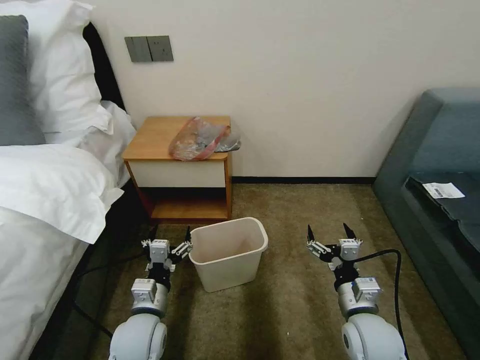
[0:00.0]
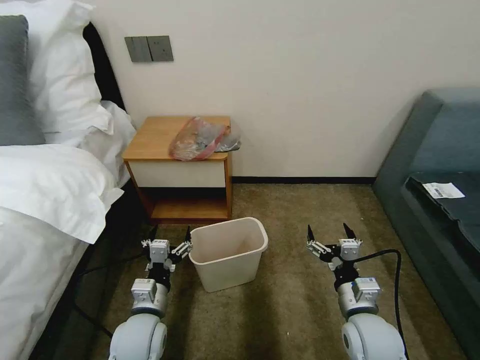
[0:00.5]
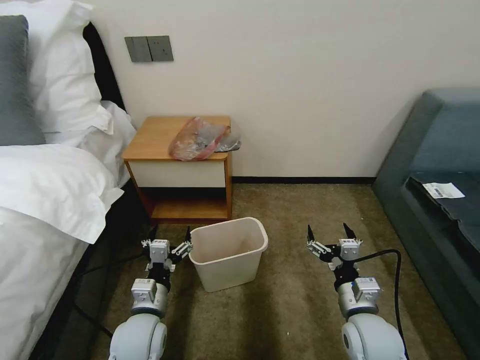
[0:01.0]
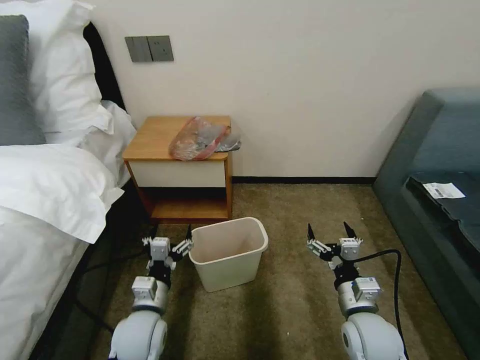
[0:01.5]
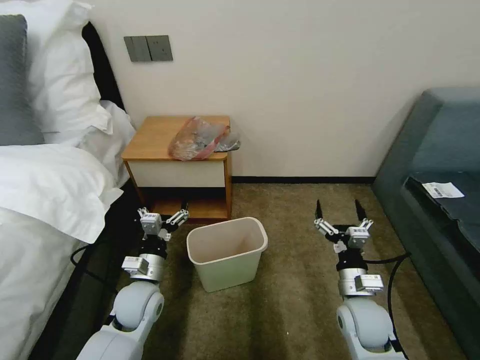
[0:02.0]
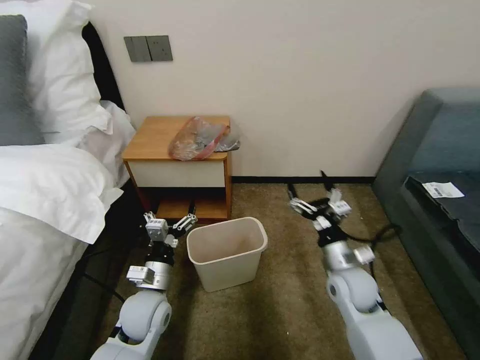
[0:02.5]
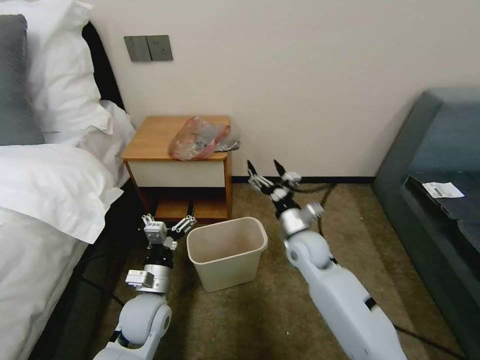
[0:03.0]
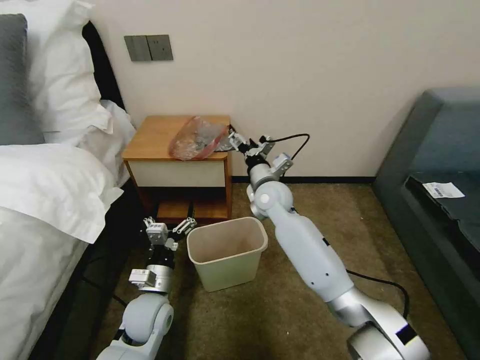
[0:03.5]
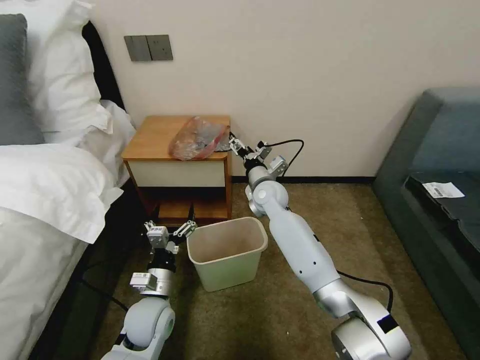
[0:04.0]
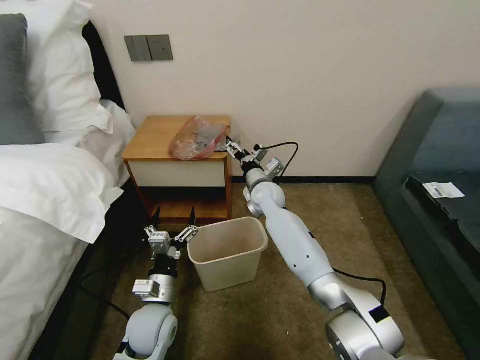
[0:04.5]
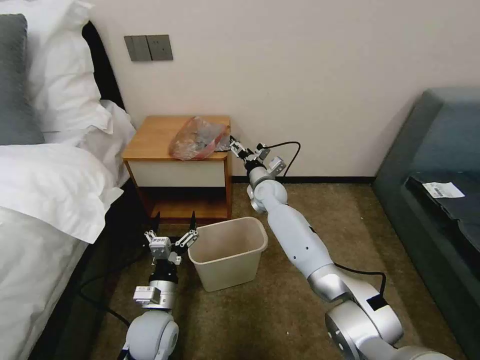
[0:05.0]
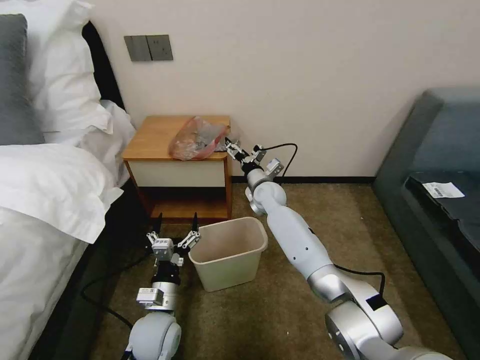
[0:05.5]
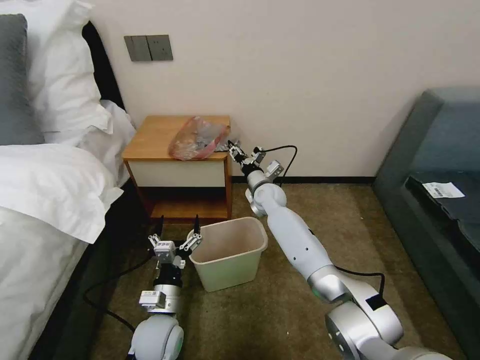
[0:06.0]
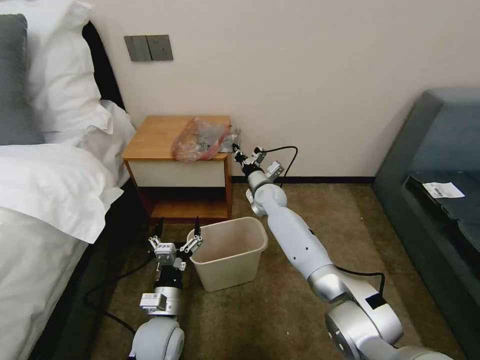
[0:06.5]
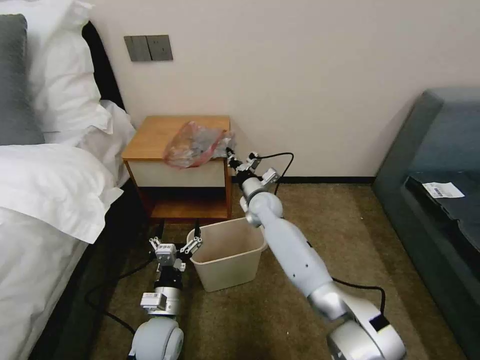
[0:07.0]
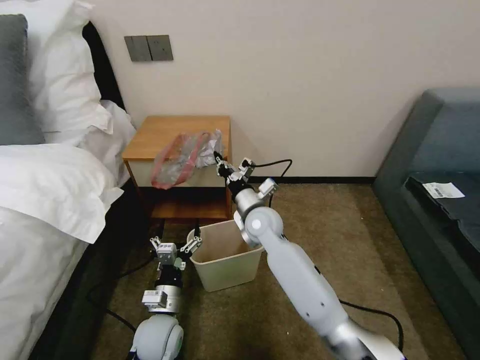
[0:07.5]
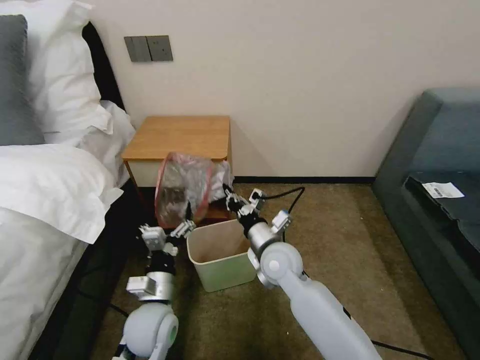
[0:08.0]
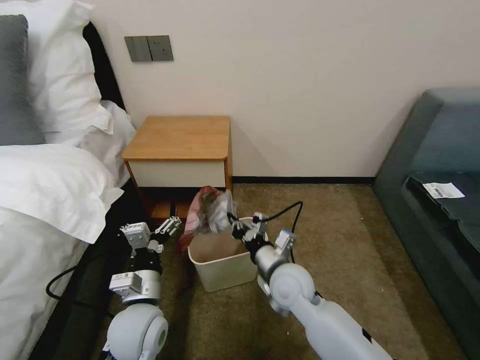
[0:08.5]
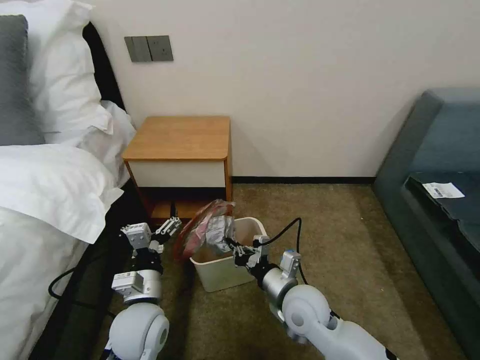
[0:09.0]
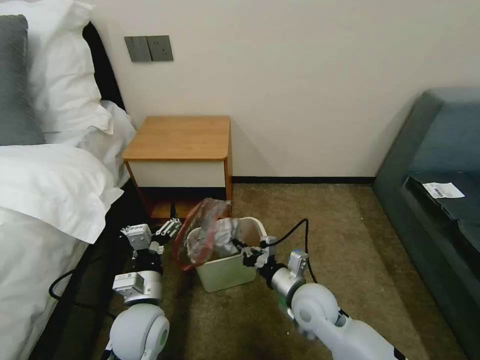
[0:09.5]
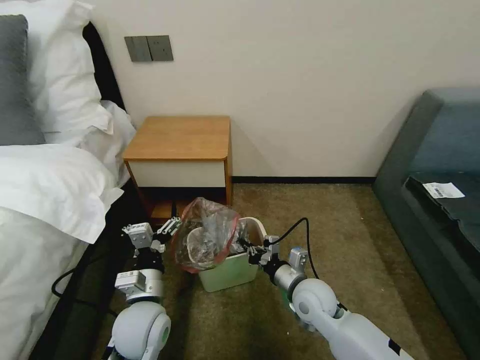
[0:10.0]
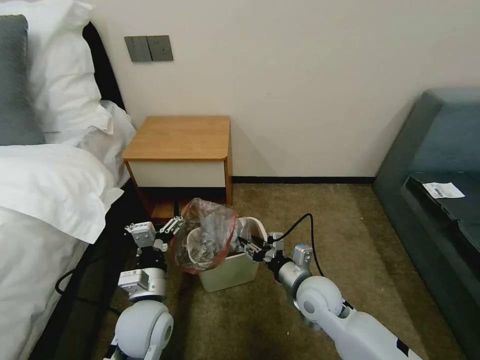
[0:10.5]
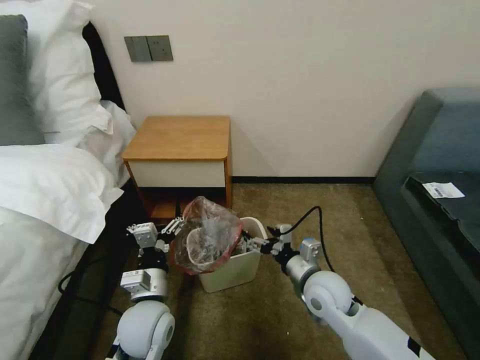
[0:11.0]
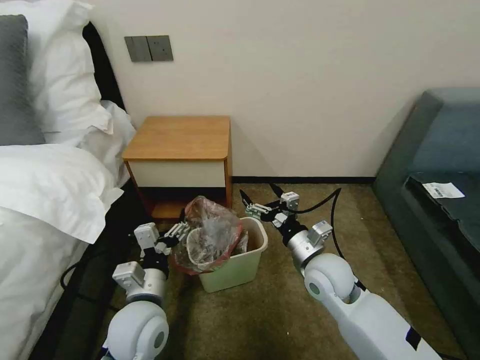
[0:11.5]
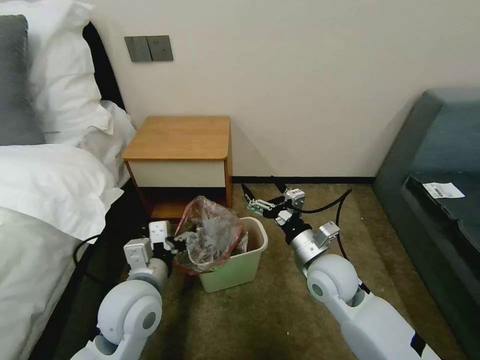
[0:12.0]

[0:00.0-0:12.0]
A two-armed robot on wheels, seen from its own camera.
Task of the whole recording: Pick up the garbage bag from the table and place it over the trash can.
0:02.0 to 0:04.0: The right gripper goes some 35 cm forward and to the left.
0:04.0 to 0:06.0: The right gripper ends up some 5 cm from where it was, and closes.
0:06.0 to 0:08.0: The right gripper is displaced backward by about 20 cm, and closes its fingers.
0:08.0 to 0:10.0: The right gripper goes roughly 10 cm to the right, downward and backward.
0:10.0 to 0:12.0: The grippers both shift upward by roughly 10 cm. The right gripper opens.

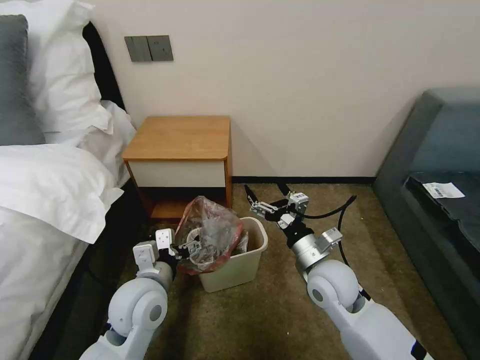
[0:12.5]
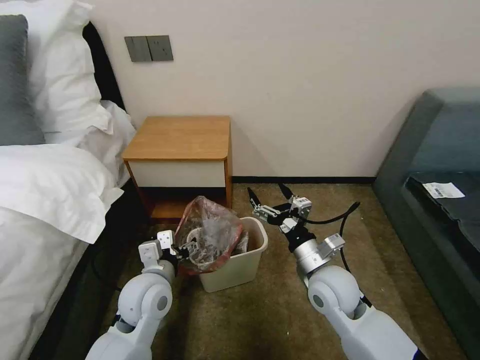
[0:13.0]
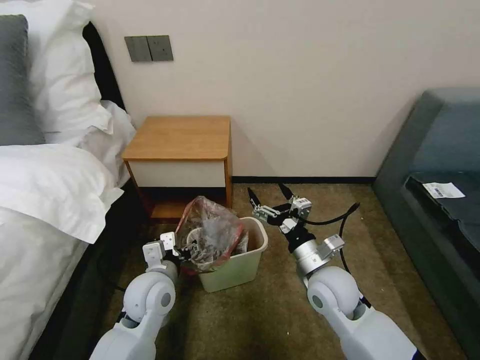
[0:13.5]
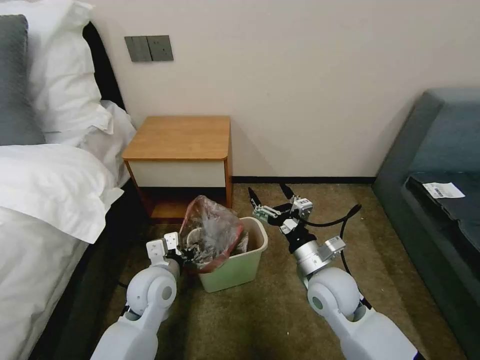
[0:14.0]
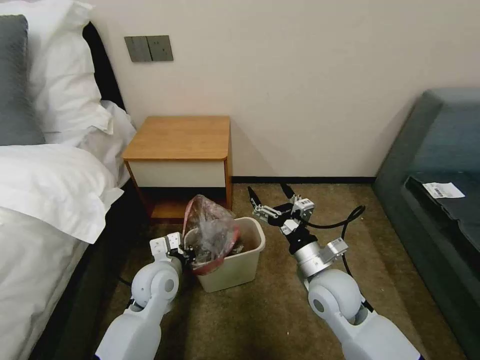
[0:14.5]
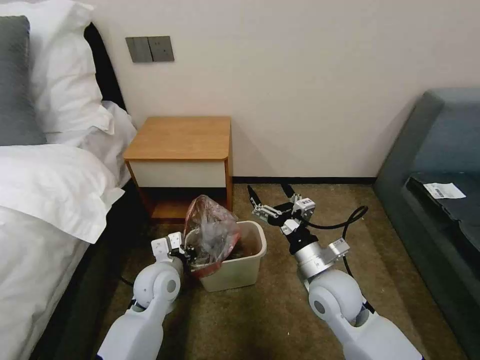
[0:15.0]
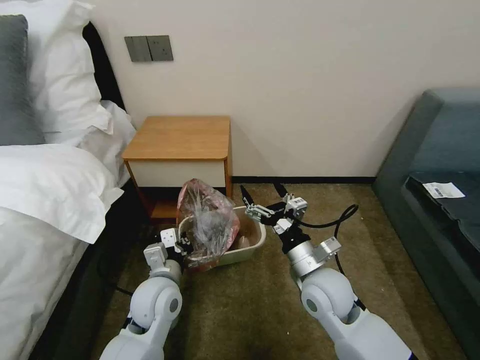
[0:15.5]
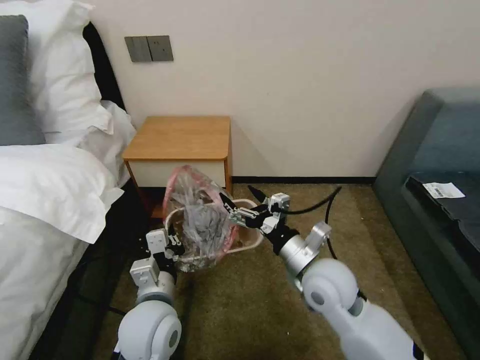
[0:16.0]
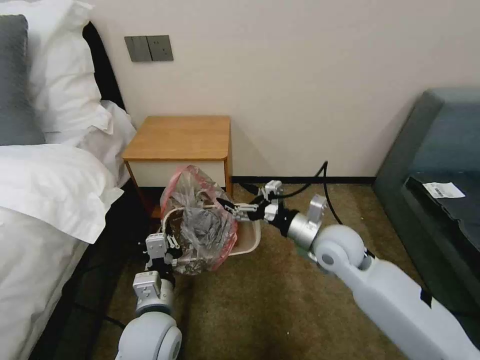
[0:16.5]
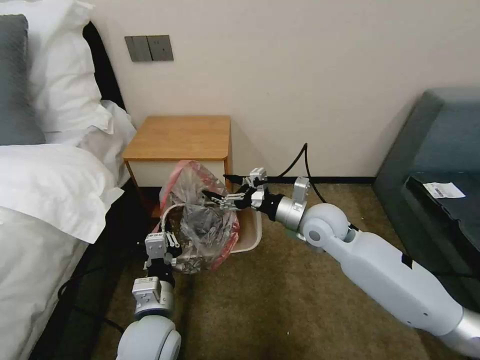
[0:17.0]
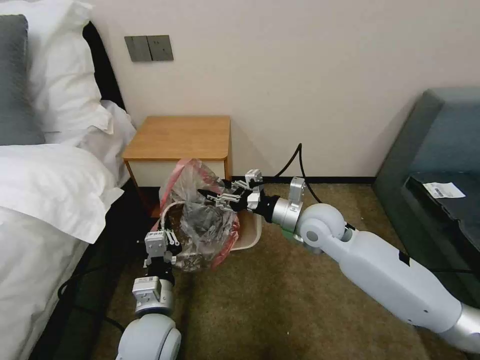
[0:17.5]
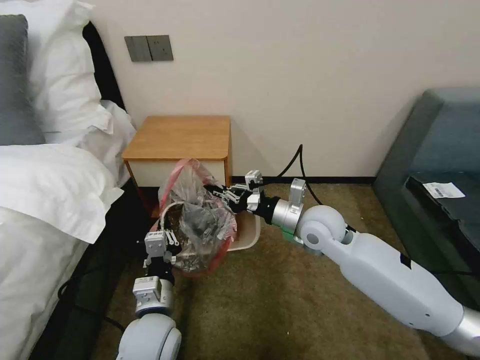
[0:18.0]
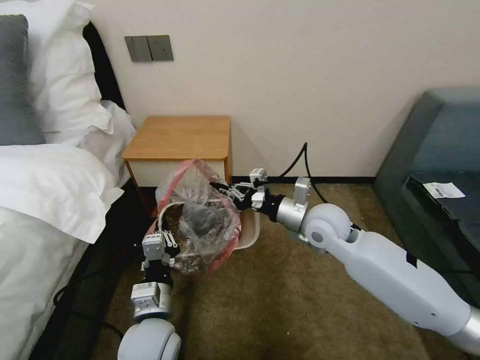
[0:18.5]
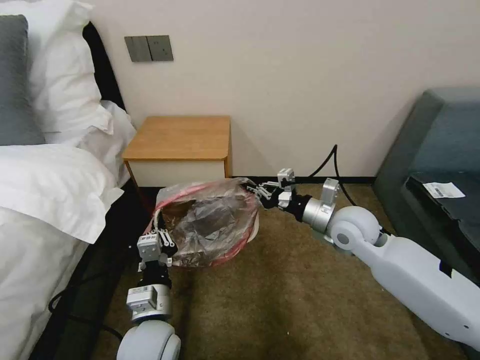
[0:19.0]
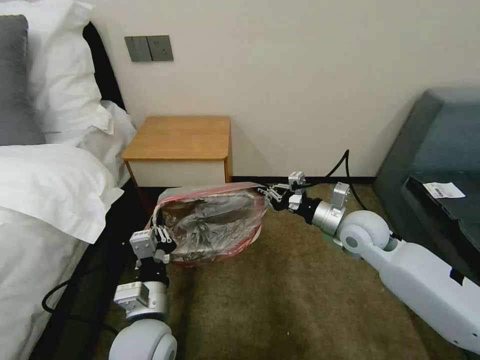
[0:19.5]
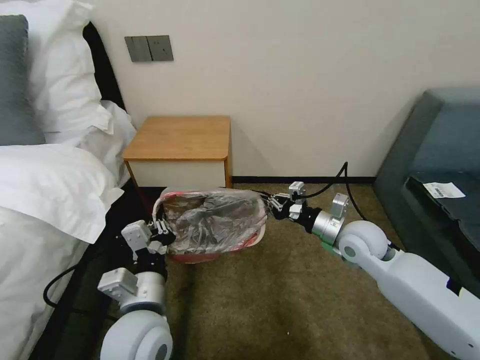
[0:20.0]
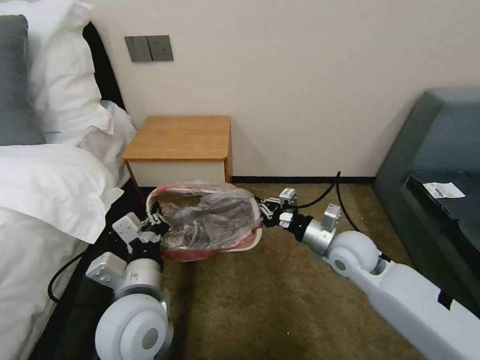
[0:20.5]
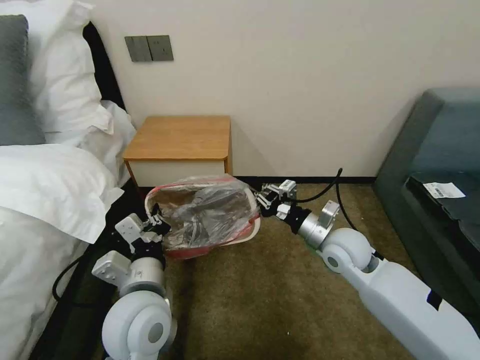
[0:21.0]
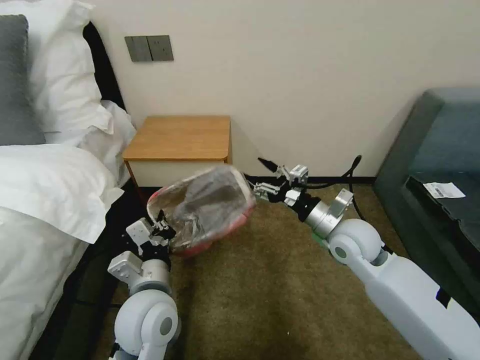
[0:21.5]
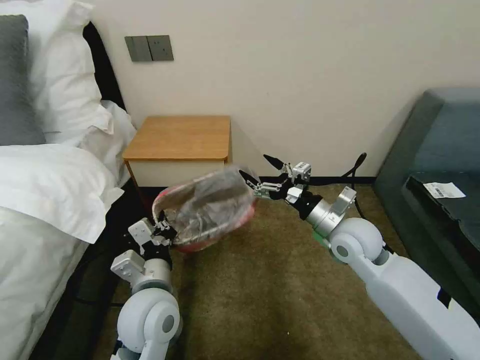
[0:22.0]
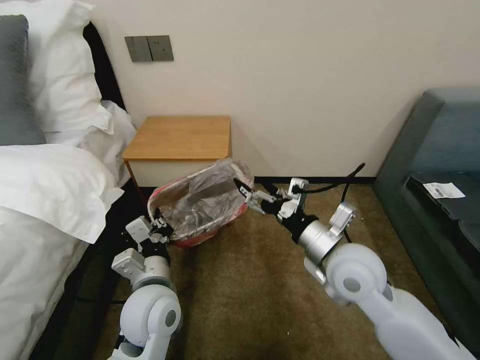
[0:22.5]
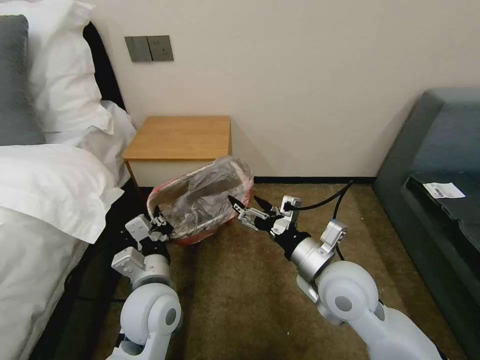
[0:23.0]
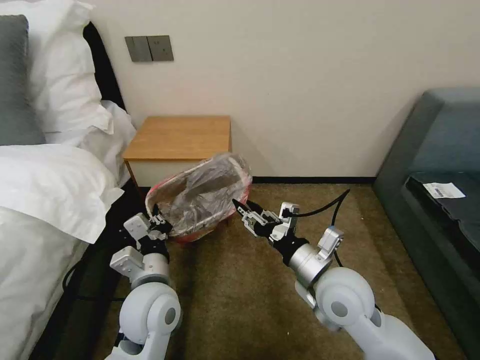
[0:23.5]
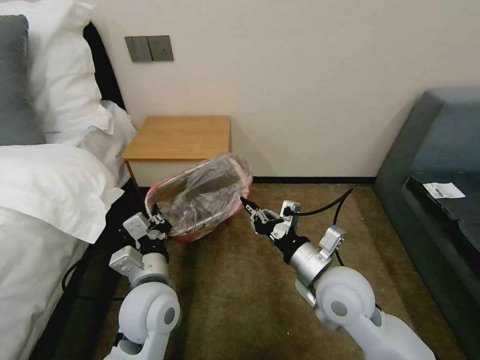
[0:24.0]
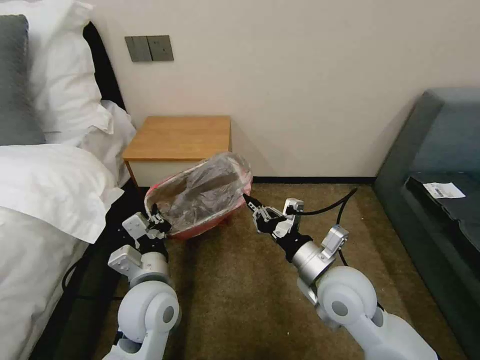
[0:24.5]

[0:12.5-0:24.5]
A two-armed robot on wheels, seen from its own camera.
Task of the whole recording: Pick up the garbage bag from the table and place it over the trash can.
0:12.5 to 0:14.5: The left gripper goes approximately 10 cm downward and forward, and closes up.
0:14.5 to 0:16.5: The left gripper shifts about 10 cm backward; the right gripper goes some 10 cm forward and upward.
0:16.5 to 0:18.5: The right gripper ends up some 5 cm from where it was, and closes up.
0:18.5 to 0:20.5: The right gripper moves to the right, some 5 cm, while the left gripper heads upward, covering roughly 10 cm.
0:20.5 to 0:22.5: The left gripper shifts roughly 5 cm downward. Meanwhile the right gripper heads upward and backward, covering about 10 cm, and opens its fingers.
0:22.5 to 0:24.5: The right gripper closes its fingers.

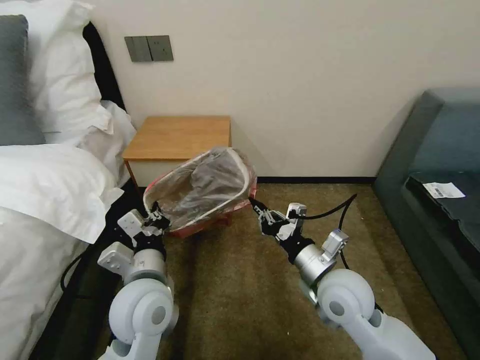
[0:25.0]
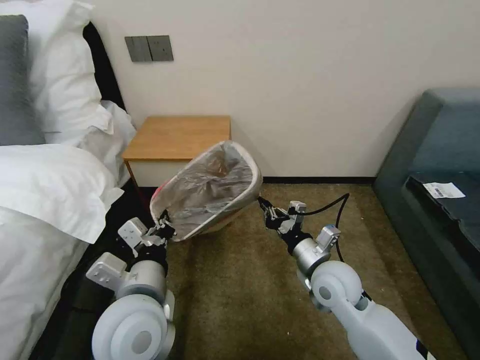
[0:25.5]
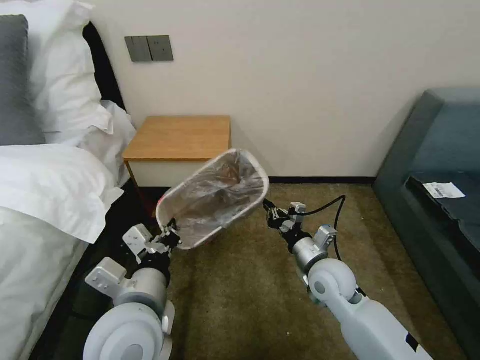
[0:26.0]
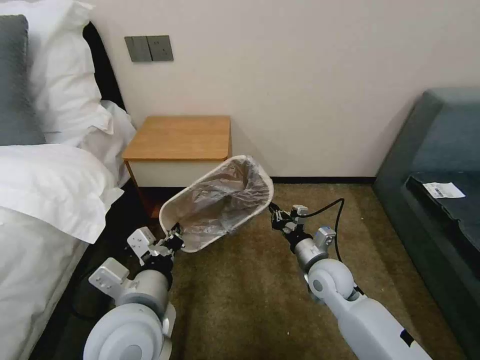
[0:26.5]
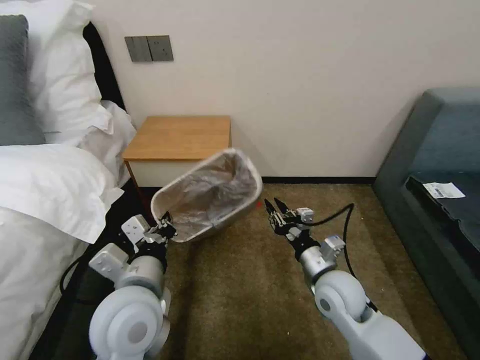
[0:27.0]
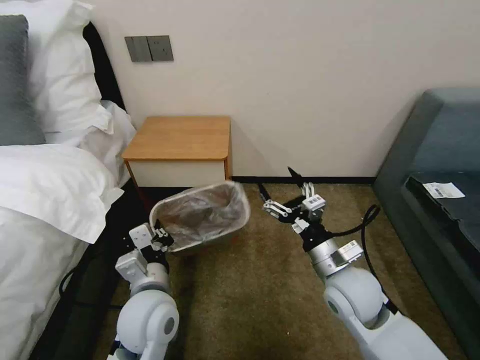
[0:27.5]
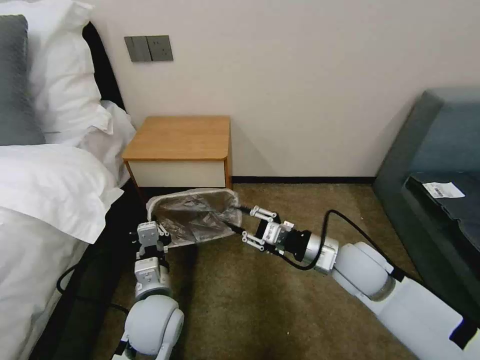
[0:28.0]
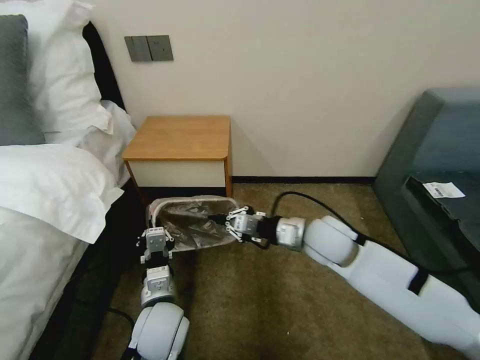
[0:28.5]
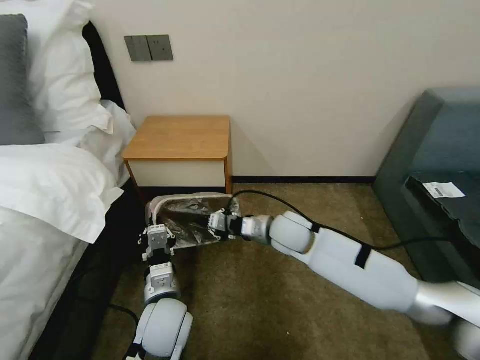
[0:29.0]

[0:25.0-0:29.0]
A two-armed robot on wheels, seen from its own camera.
Task of the whole recording: Pick up the garbage bag from the table and place it over the trash can.
0:25.0 to 0:27.0: The right gripper shifts some 5 cm downward.
0:27.0 to 0:29.0: The left gripper heads downward, covering about 15 cm, while the right gripper goes about 15 cm forward and to the left, and opens, then closes once more.
